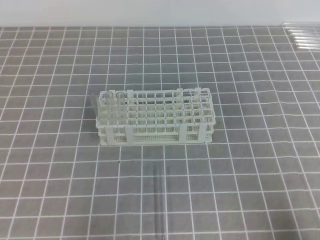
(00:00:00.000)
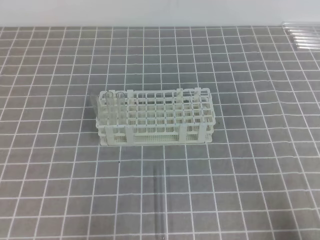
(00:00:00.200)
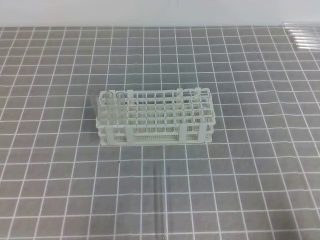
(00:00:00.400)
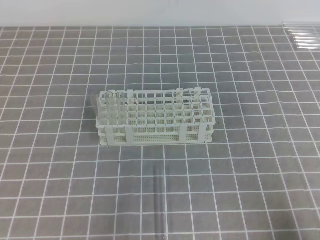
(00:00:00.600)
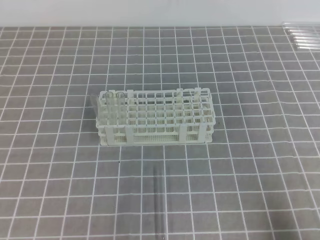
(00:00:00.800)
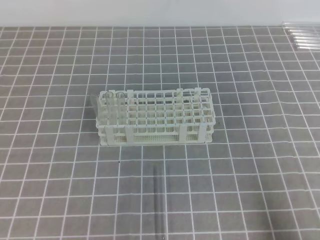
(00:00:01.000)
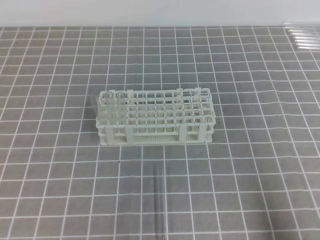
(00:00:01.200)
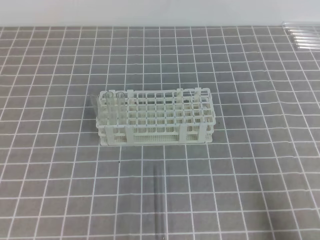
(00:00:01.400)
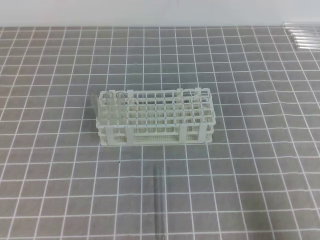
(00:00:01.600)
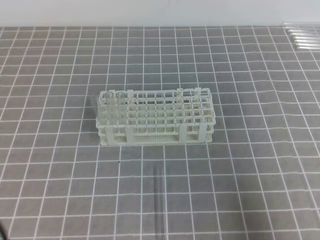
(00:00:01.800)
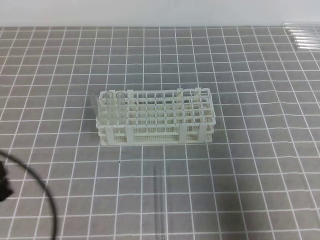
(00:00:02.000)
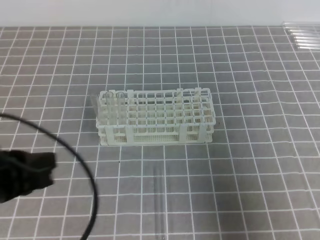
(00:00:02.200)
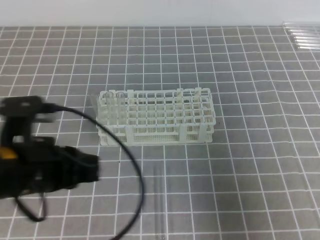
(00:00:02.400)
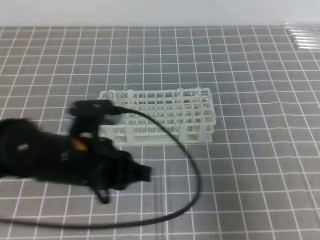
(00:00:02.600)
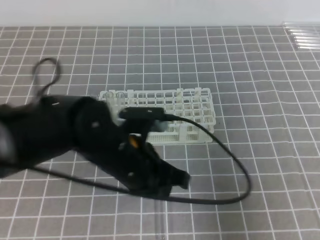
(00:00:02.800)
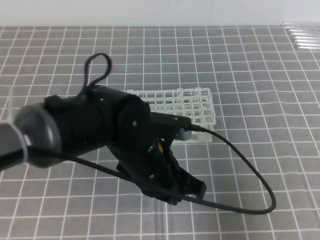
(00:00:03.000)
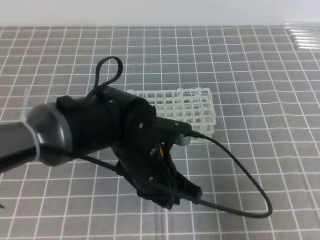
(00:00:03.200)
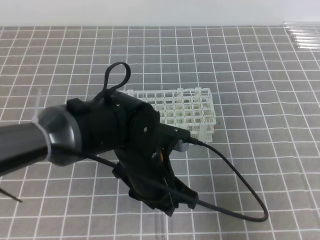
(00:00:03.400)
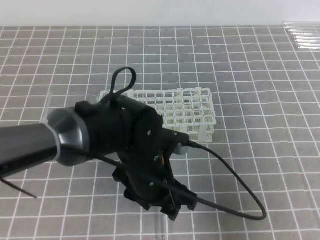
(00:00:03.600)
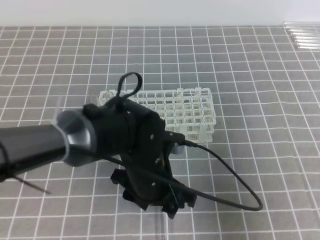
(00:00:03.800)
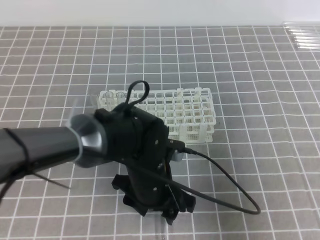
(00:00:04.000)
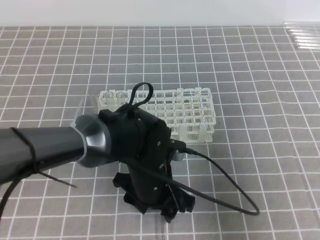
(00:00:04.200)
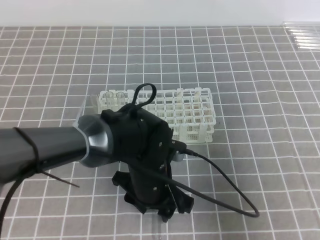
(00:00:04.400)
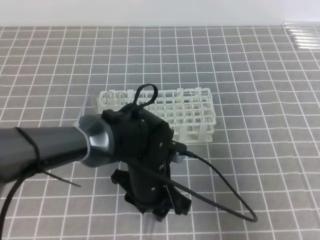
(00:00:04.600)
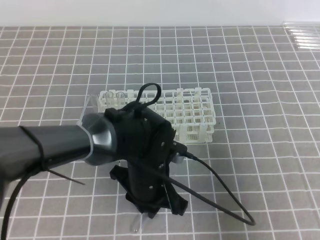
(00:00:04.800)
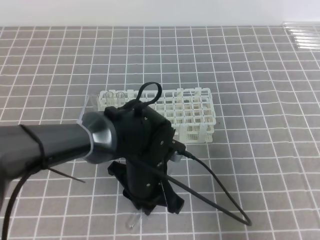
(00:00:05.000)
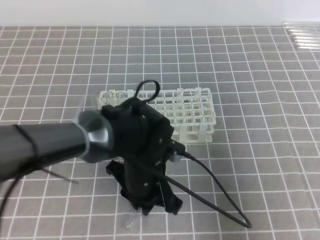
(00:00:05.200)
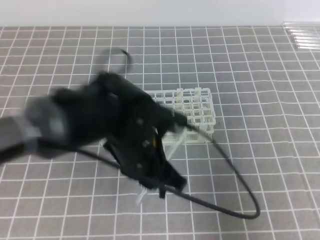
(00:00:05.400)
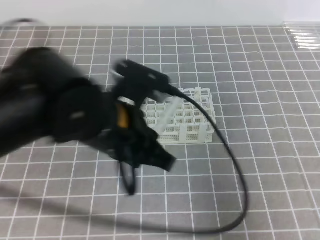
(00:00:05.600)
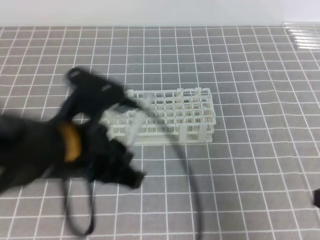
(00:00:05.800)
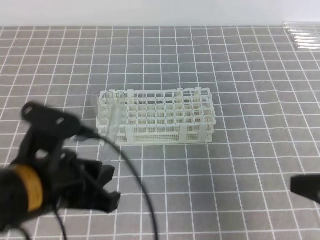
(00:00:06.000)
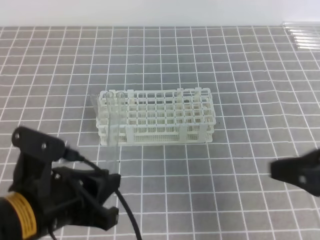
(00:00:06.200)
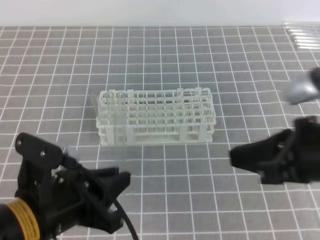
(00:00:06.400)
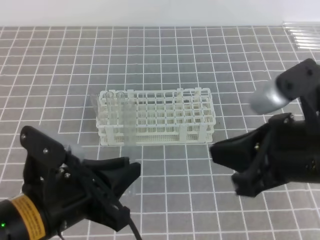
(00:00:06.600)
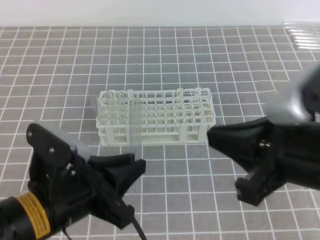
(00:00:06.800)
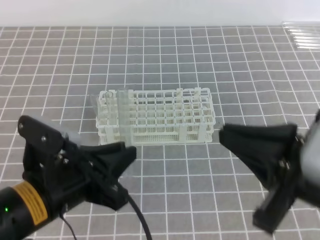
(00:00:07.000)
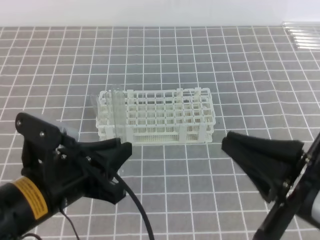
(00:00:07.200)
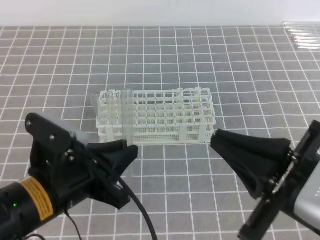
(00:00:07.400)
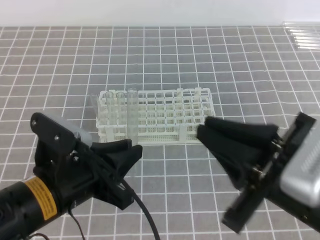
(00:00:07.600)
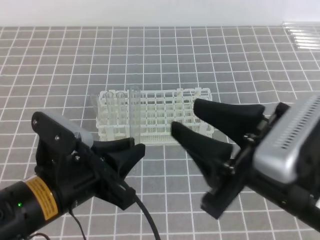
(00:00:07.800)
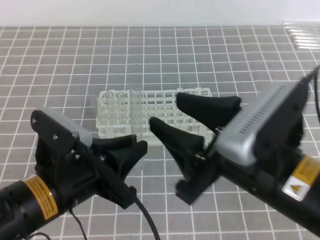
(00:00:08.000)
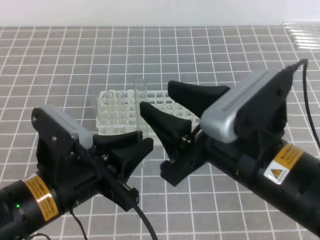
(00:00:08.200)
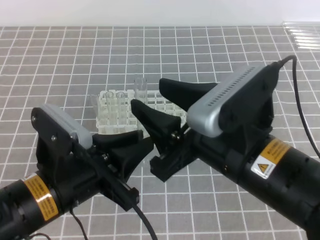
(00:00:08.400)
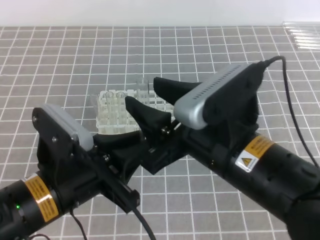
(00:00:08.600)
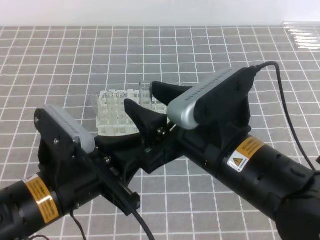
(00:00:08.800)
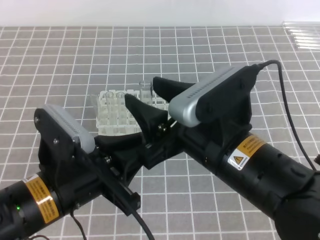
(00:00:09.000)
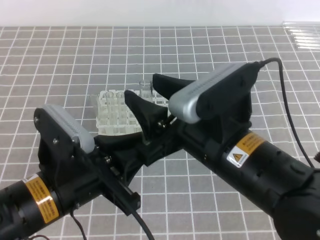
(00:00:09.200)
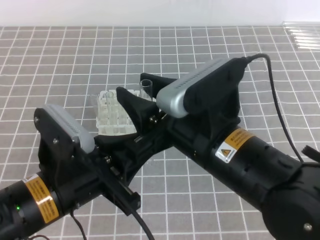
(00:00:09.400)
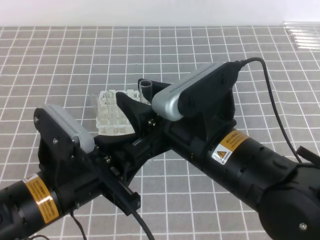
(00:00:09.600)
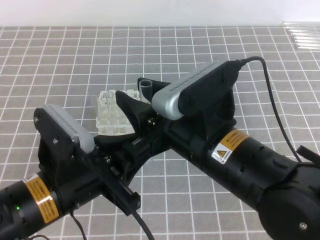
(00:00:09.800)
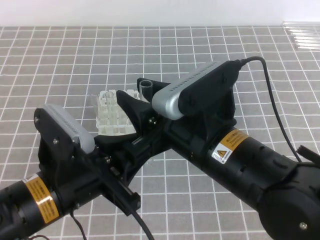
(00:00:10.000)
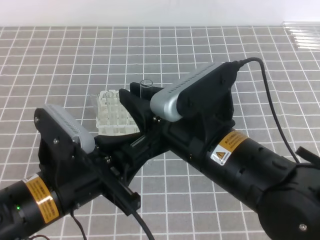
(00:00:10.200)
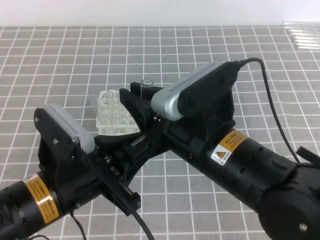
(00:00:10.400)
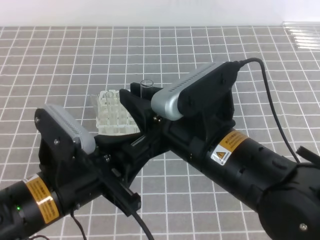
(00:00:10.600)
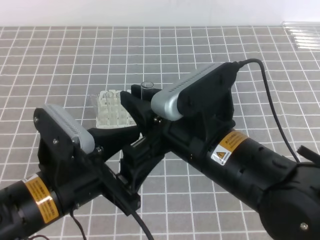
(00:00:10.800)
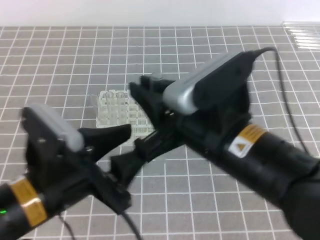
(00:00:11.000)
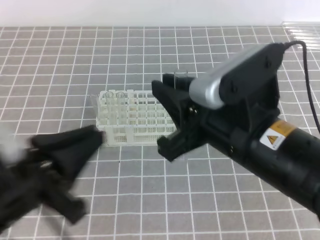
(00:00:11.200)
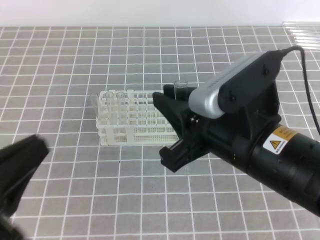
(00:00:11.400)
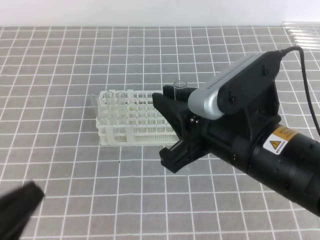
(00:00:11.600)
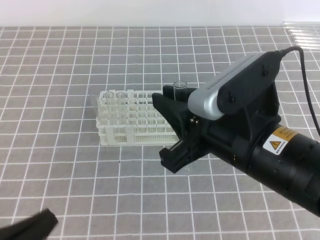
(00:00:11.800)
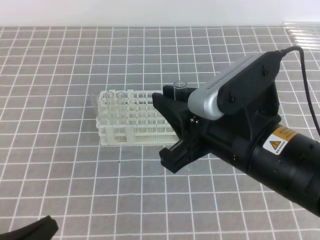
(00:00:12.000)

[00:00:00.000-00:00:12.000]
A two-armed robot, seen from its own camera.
00:00:01.600 to 00:00:03.000: The right gripper shifts some 5 cm forward. The left gripper is displaced to the right and forward by some 30 cm.
00:00:03.000 to 00:00:04.400: The left gripper shifts some 5 cm downward, and opens up.
00:00:04.400 to 00:00:06.000: The left gripper moves upward, to the left and backward, roughly 20 cm, and closes.
00:00:06.000 to 00:00:07.600: The right gripper goes approximately 10 cm to the left.
00:00:07.600 to 00:00:09.000: The right gripper moves to the left and forward, about 10 cm, and opens its fingers.
00:00:09.000 to 00:00:10.400: The right gripper closes up.
00:00:10.400 to 00:00:12.000: The left gripper goes approximately 15 cm to the left, backward and downward, and opens, then closes once more.

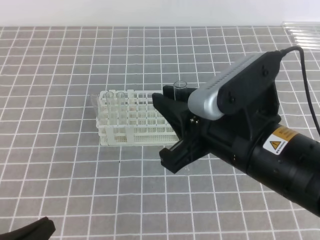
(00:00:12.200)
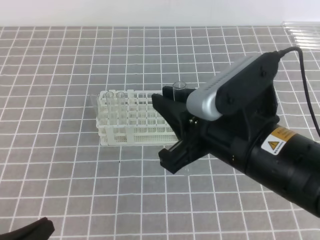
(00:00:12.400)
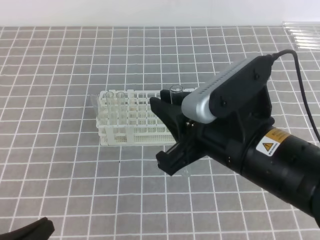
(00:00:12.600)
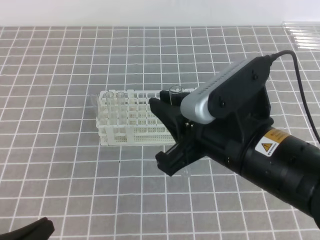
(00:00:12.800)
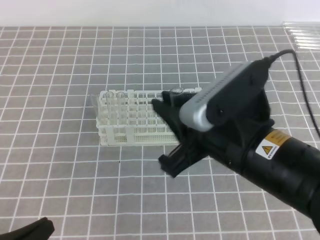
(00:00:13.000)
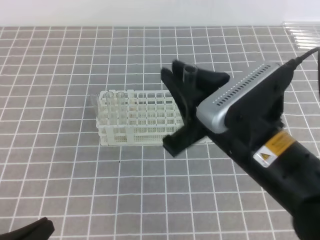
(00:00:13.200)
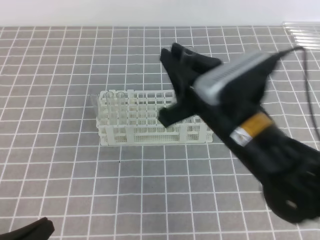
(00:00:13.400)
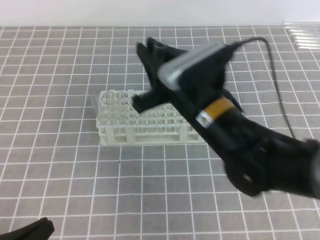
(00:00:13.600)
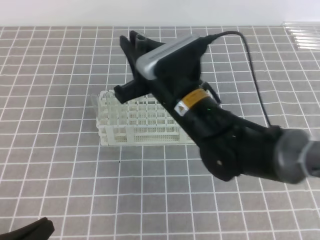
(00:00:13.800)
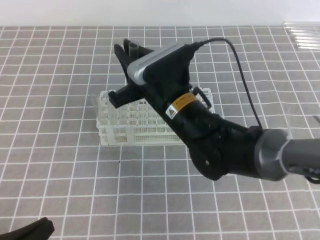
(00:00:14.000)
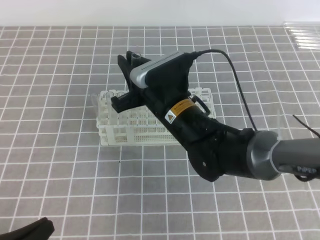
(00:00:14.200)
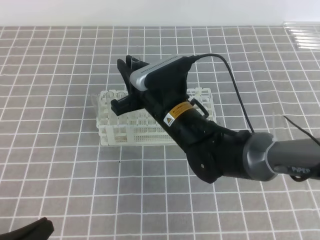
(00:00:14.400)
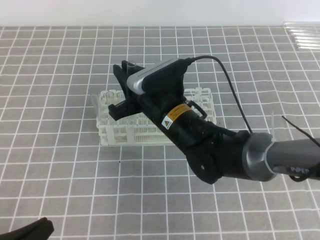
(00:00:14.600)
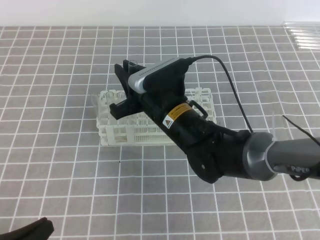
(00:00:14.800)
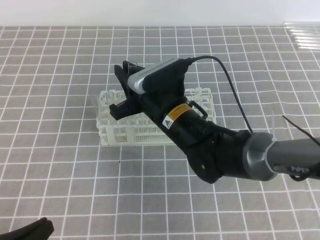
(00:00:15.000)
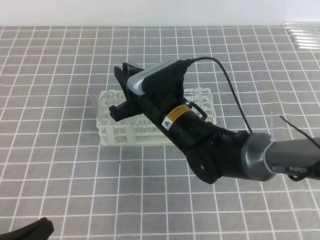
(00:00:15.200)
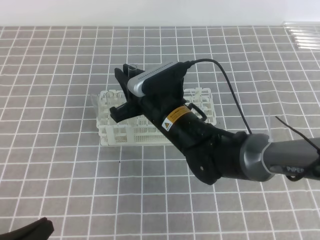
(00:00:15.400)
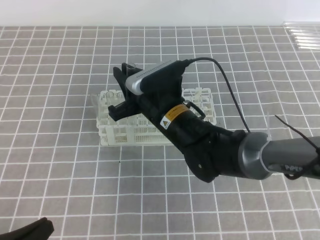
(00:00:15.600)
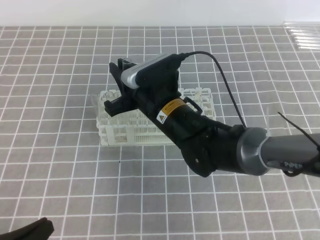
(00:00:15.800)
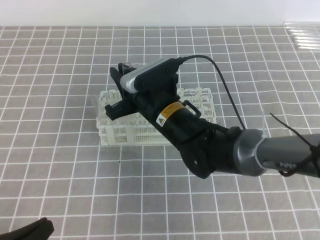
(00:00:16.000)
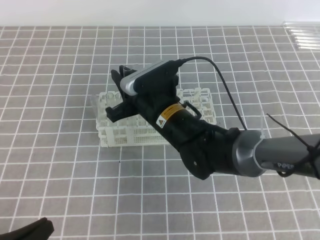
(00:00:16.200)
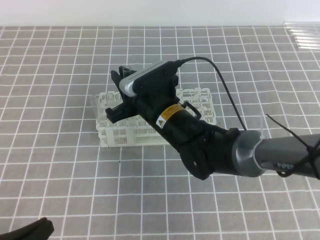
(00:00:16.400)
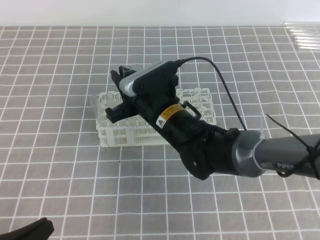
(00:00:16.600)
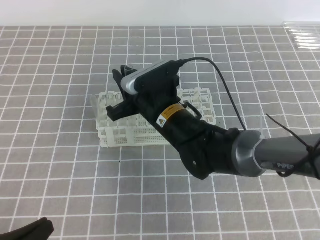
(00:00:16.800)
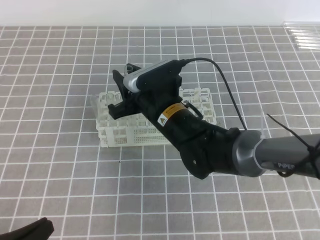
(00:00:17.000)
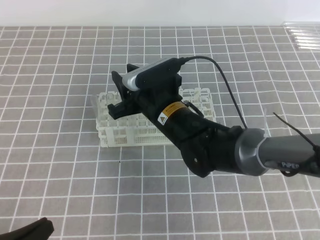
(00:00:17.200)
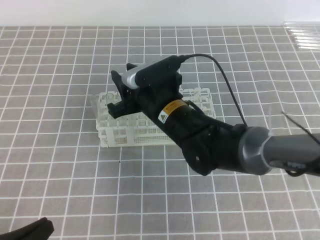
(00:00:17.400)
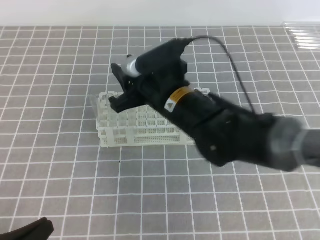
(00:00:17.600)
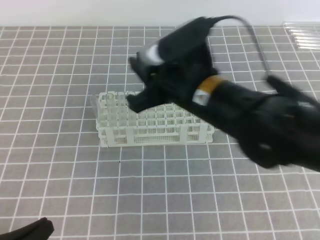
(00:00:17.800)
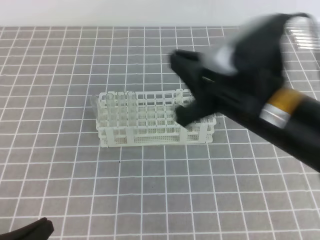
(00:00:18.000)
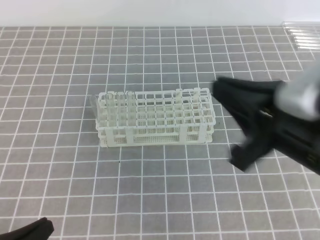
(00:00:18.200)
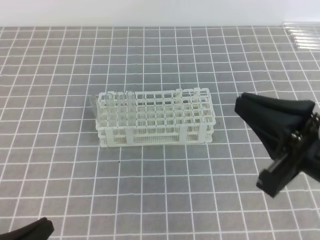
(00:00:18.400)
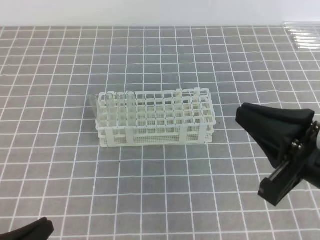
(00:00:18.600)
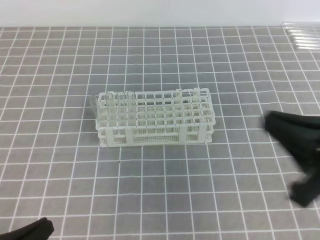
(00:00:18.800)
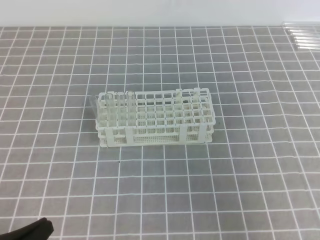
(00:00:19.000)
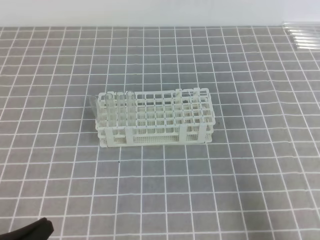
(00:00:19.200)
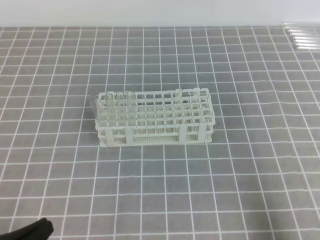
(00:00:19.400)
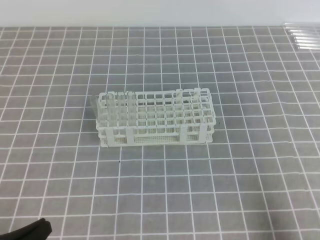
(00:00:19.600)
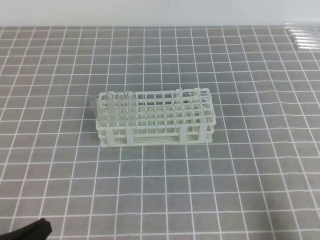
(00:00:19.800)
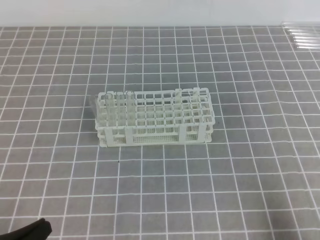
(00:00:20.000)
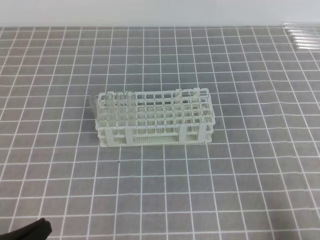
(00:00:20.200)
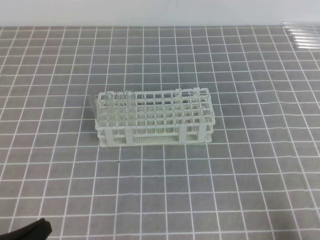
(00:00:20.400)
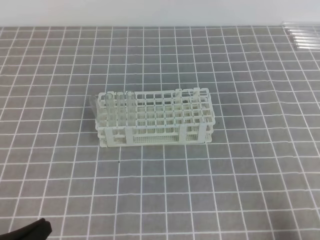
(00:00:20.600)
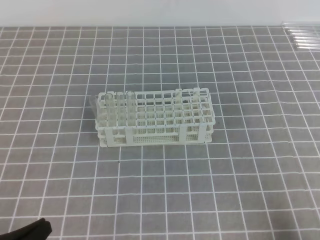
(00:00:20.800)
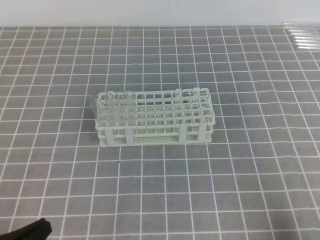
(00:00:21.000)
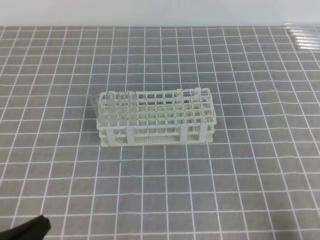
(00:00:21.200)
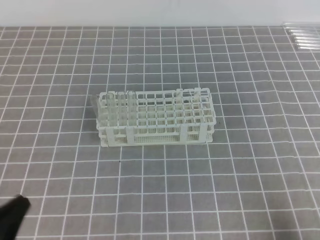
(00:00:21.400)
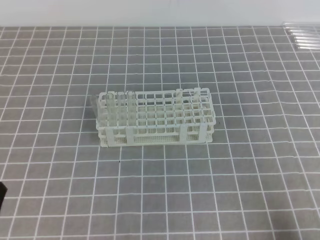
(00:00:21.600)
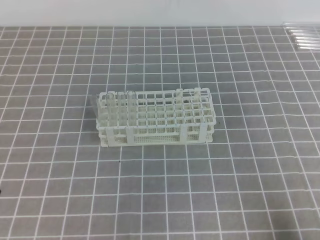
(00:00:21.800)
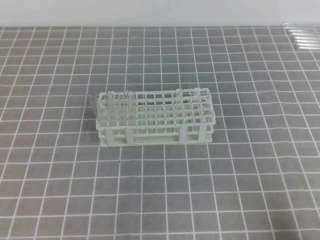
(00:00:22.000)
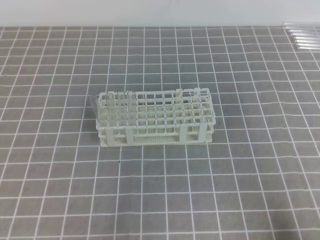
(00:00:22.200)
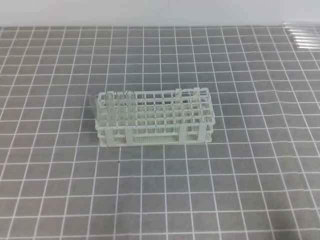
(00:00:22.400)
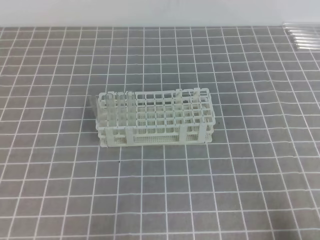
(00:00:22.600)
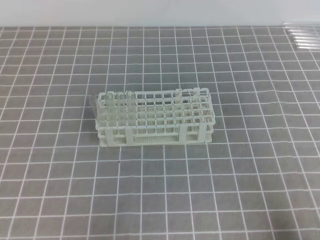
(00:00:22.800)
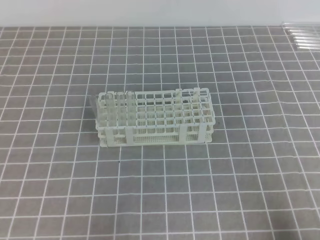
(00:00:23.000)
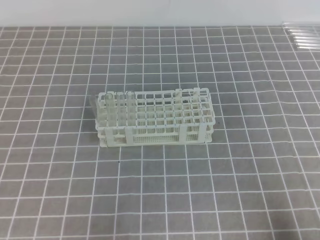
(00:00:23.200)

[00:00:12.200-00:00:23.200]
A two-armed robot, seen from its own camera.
00:00:12.200 to 00:00:13.800: The right gripper shifts roughly 15 cm forward, to the left and downward.
00:00:13.800 to 00:00:15.400: The right gripper is displaced downward by approximately 5 cm.
00:00:15.400 to 00:00:17.000: Both grippers stay put.
00:00:17.000 to 00:00:18.400: The right gripper shifts roughly 30 cm backward, to the right and upward, and closes up.
00:00:18.400 to 00:00:20.000: The right gripper moves downward, to the right and backward, some 20 cm.
00:00:20.000 to 00:00:21.600: The grippers make only small movements.
